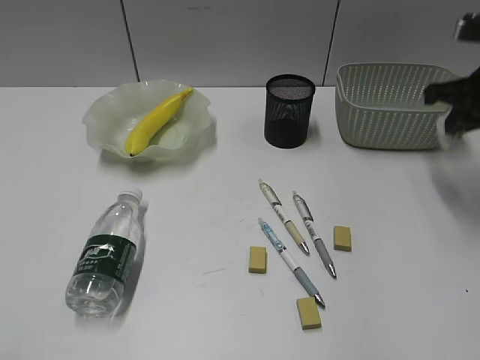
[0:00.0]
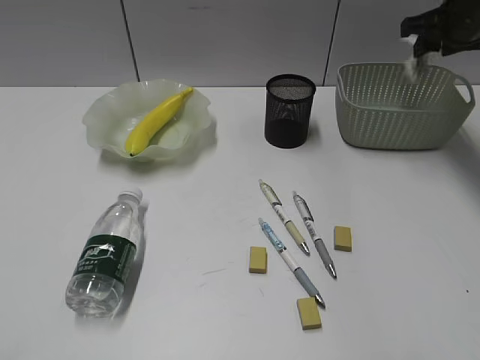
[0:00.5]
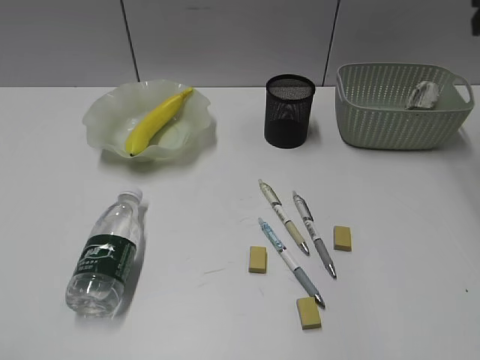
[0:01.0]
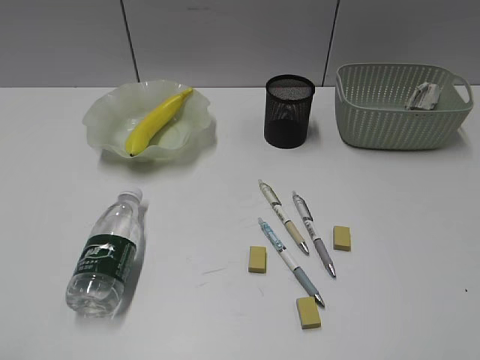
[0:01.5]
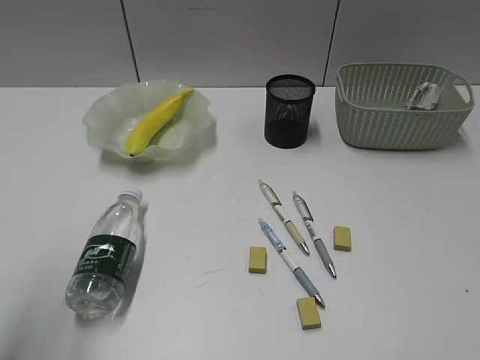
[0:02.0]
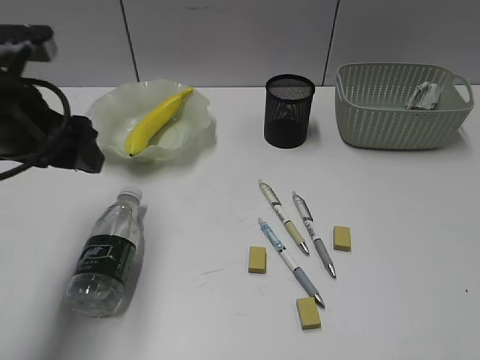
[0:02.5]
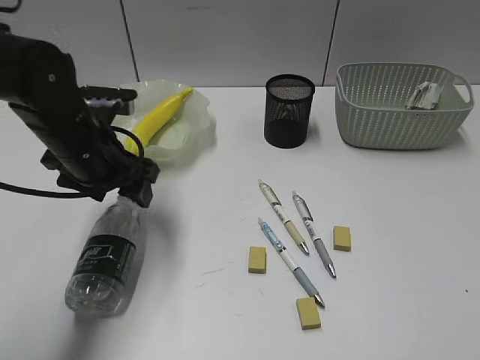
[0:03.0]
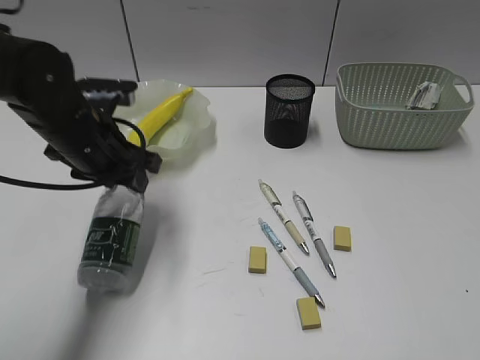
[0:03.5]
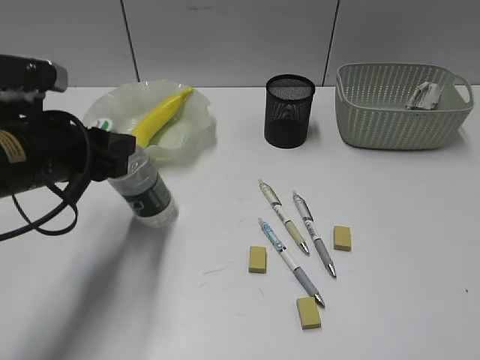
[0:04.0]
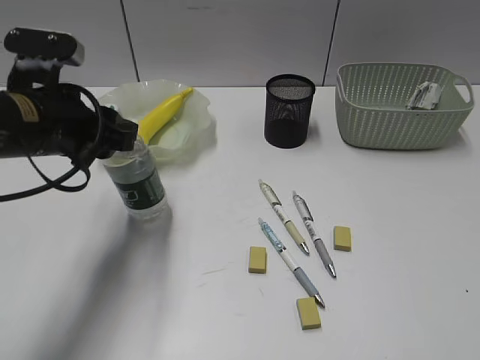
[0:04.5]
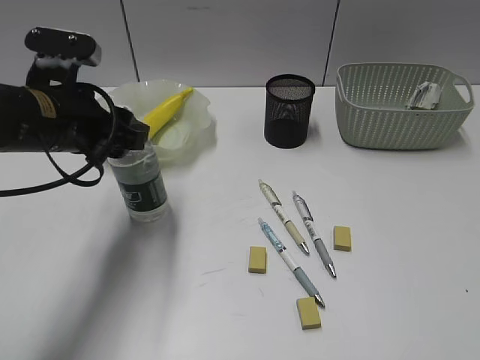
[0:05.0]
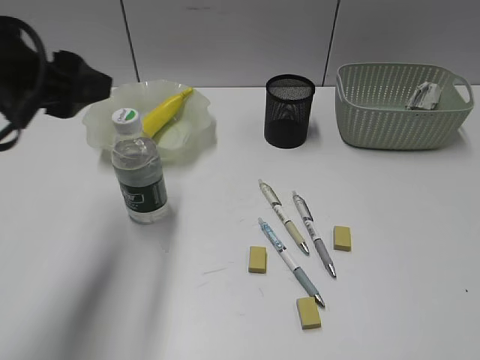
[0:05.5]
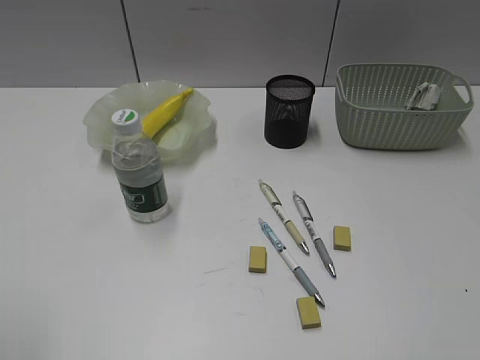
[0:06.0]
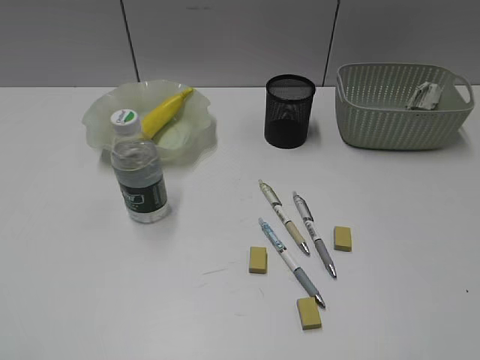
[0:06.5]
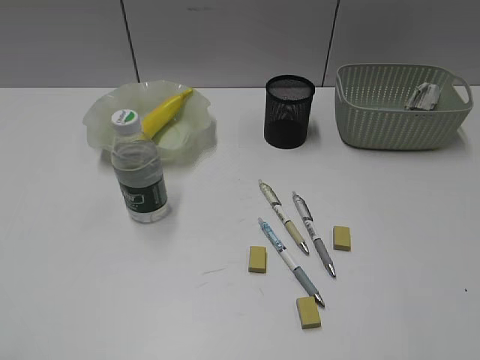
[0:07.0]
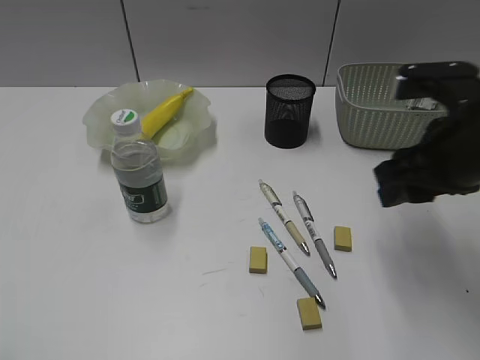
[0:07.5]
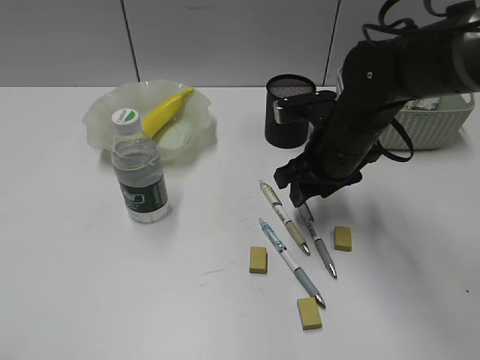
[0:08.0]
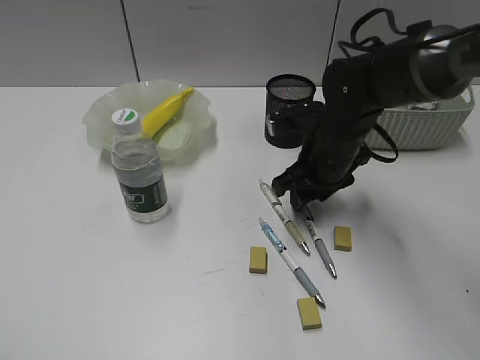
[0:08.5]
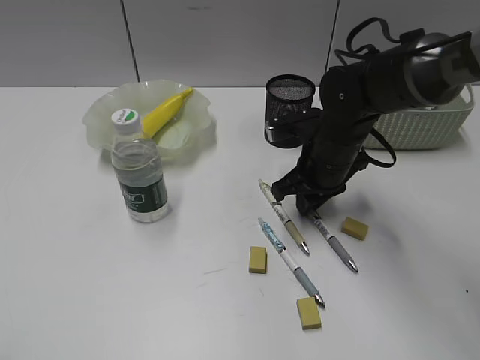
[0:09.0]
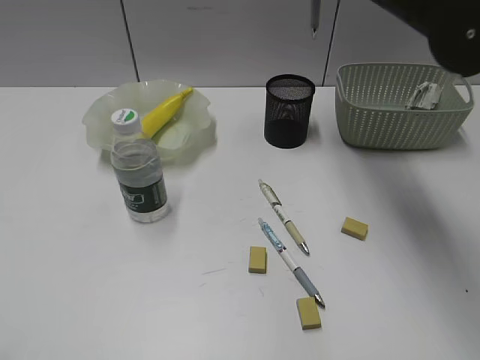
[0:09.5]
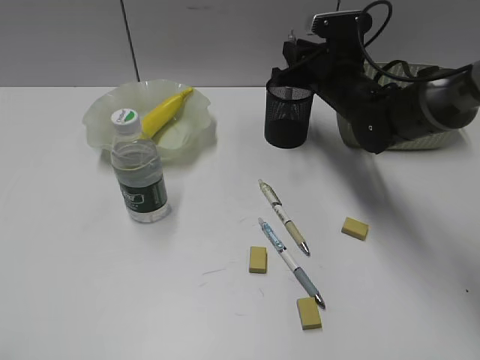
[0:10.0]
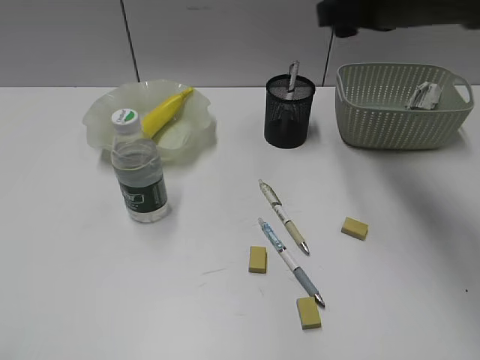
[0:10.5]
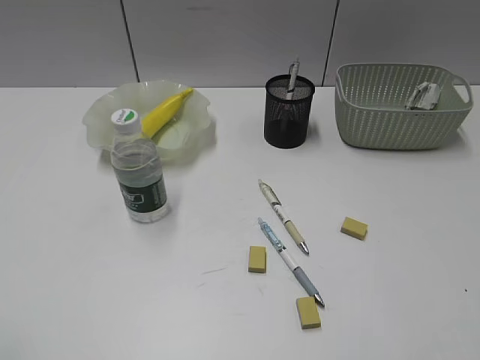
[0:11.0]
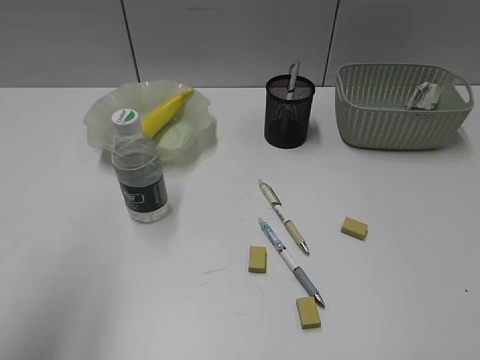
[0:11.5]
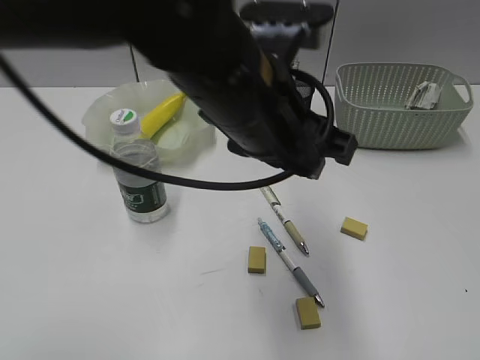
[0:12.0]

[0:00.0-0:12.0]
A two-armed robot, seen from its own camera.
Step, 0:00.0 to 0:00.5: Place the waste paper in the basket with right gripper.
Step, 0:01.0 to 0:03.0: Grasp the bottle with left gripper.
Step, 0:03.5 to 0:05.0: Stand the bottle with left gripper.
Step, 0:05.5 to 0:09.0: Grasp the gray pen with right gripper.
Step, 0:09.5 to 0:10.0: Place the gray pen in pen holder with right gripper.
0:00.0 to 0:02.0: The right gripper shifts some 35 cm backward, and opens. The left gripper is displaced forward by about 10 cm, and opens up.
0:02.0 to 0:04.0: The left gripper goes roughly 20 cm forward, downward and to the right, and closes up.
0:04.0 to 0:06.0: The left gripper is displaced backward, upward and to the left by about 30 cm.
0:06.0 to 0:08.0: The right gripper moves forward, to the left and downward, about 40 cm, while the left gripper goes about 5 cm backward.
0:08.0 to 0:10.0: The right gripper moves up and down over approximately 20 cm, changing direction 2 times, and closes.
0:10.0 to 0:12.0: The left gripper moves to the right and forward, roughly 40 cm, while the right gripper is displaced backward by roughly 40 cm, and opens up.

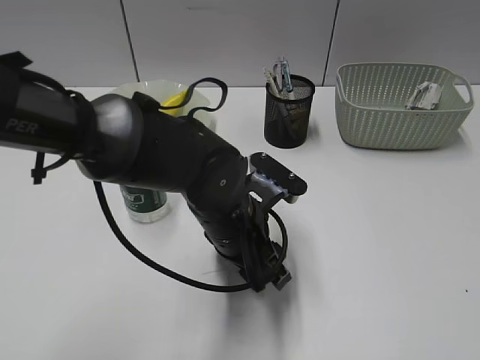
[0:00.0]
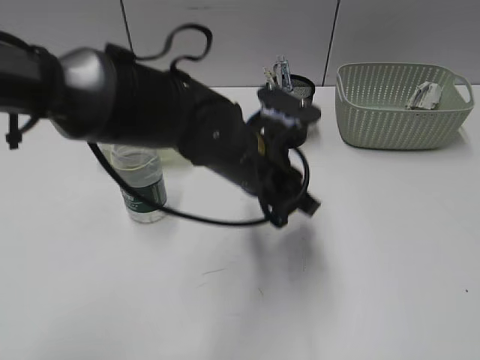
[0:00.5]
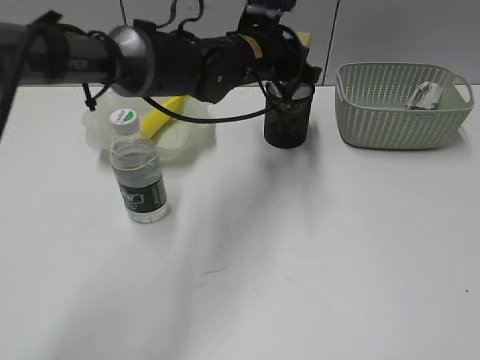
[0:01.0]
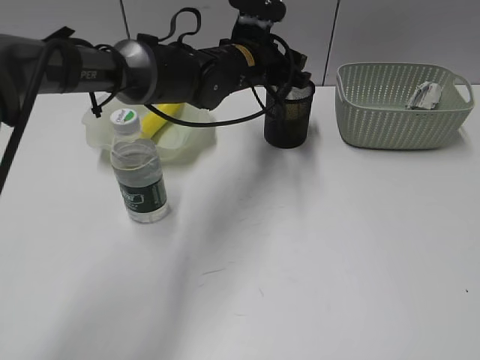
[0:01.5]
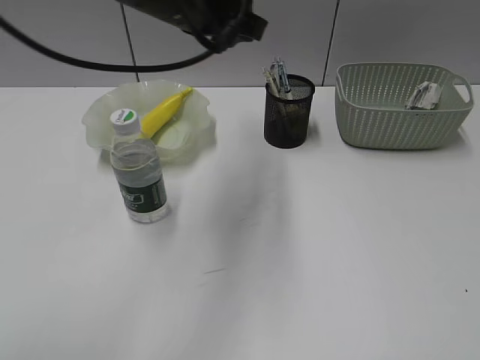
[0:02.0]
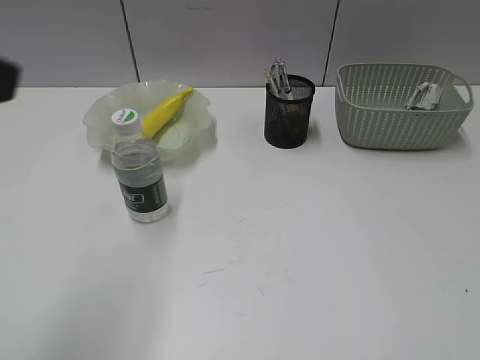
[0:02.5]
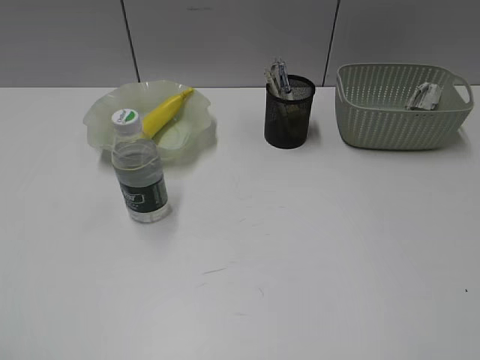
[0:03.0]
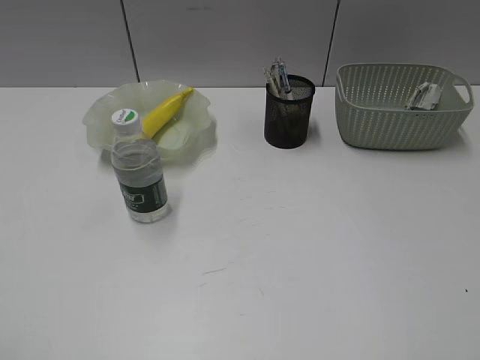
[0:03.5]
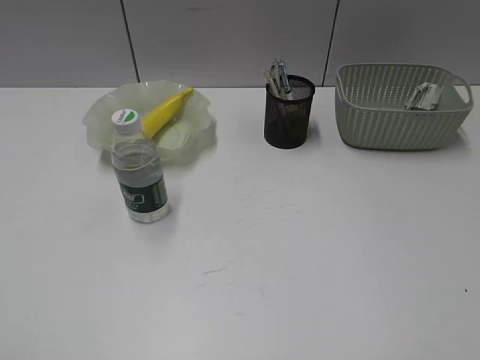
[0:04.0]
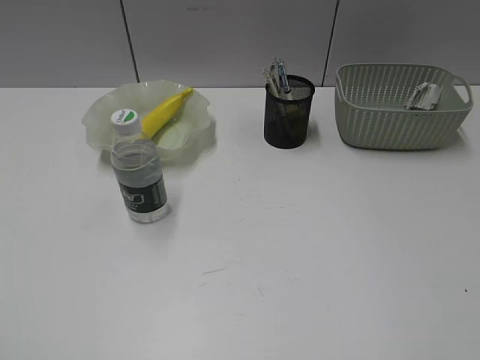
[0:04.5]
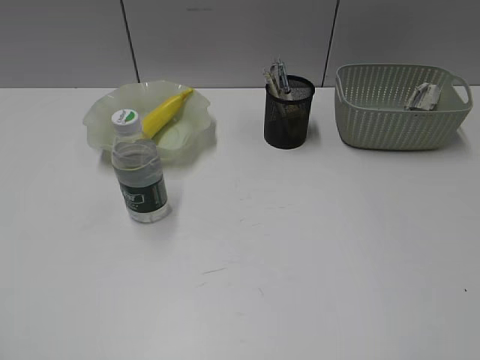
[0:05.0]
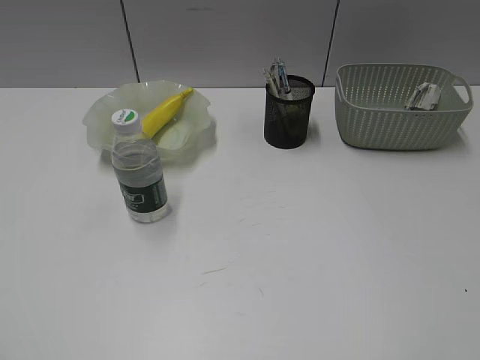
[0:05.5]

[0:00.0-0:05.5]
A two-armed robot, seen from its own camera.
Step, 0:00.5 to 0:01.5: Place the eraser in pen holder with left gripper.
0:00.0 to 0:02.0: The left gripper is displaced upward and forward by roughly 20 cm.
0:02.0 to 0:03.5: The left gripper heads backward and to the left, covering some 50 cm.

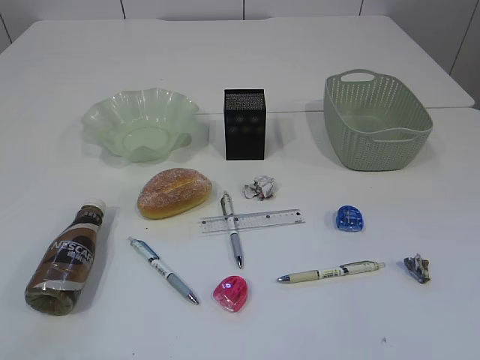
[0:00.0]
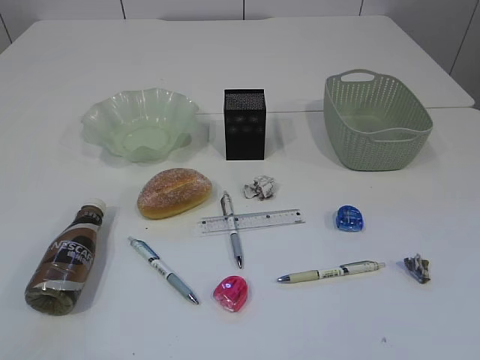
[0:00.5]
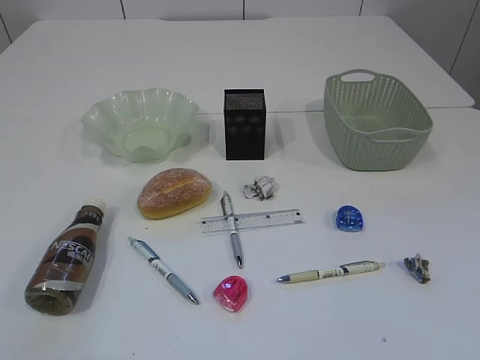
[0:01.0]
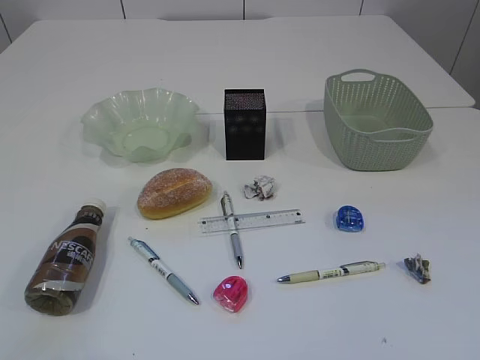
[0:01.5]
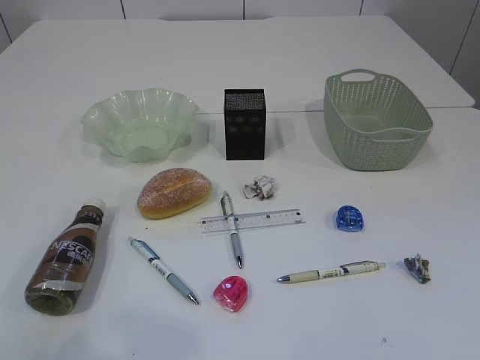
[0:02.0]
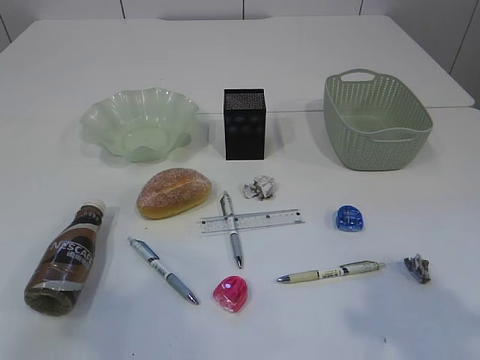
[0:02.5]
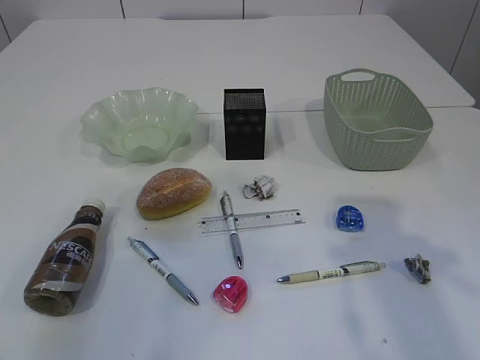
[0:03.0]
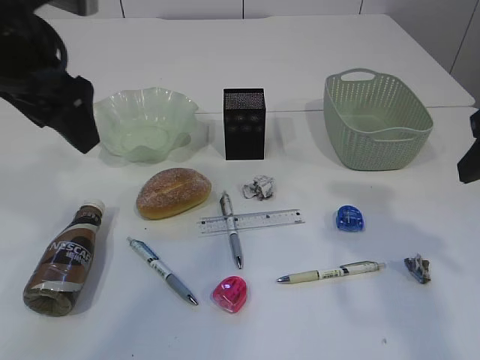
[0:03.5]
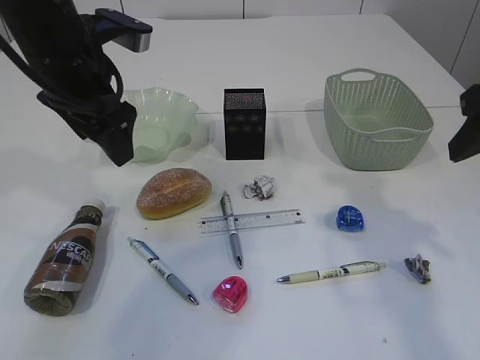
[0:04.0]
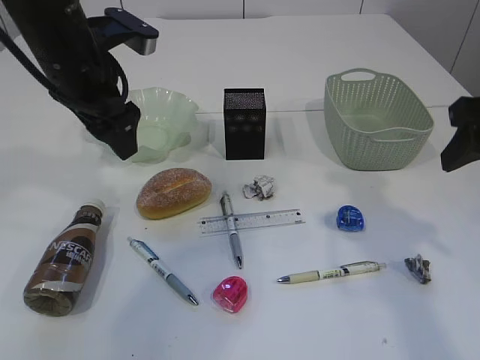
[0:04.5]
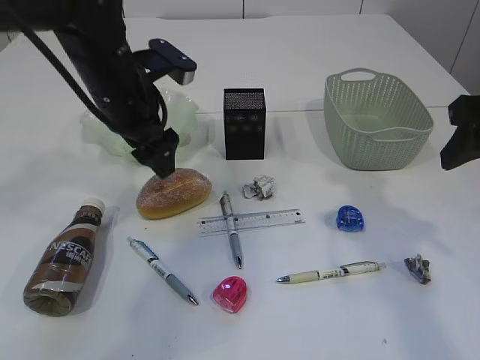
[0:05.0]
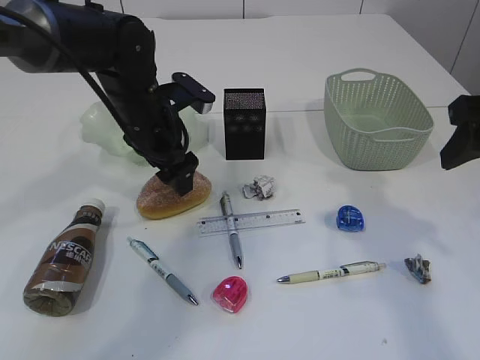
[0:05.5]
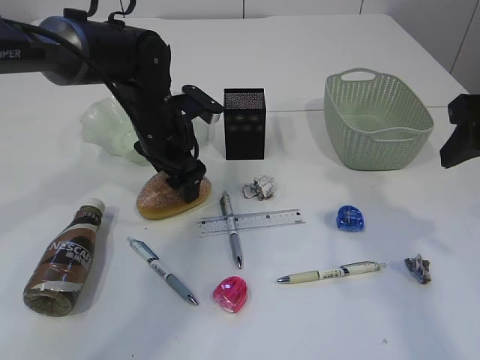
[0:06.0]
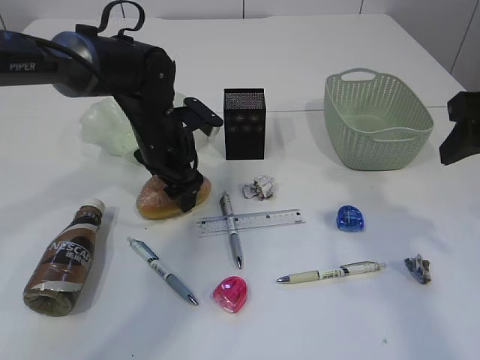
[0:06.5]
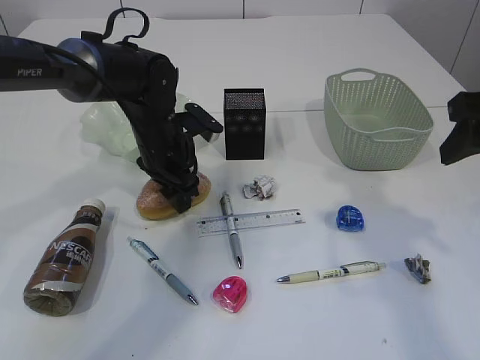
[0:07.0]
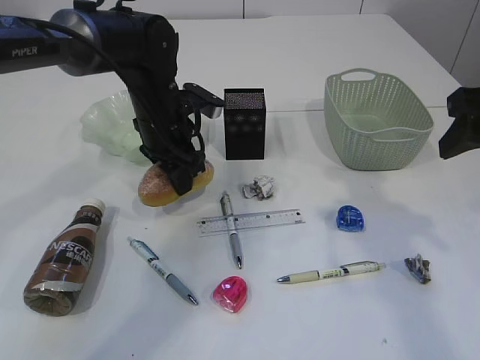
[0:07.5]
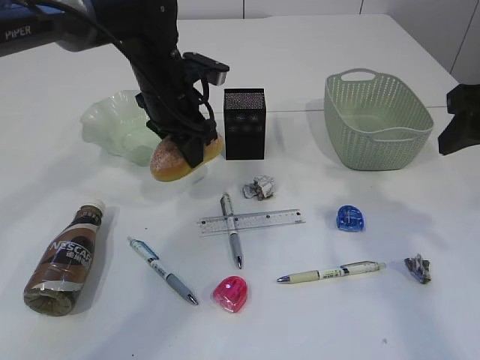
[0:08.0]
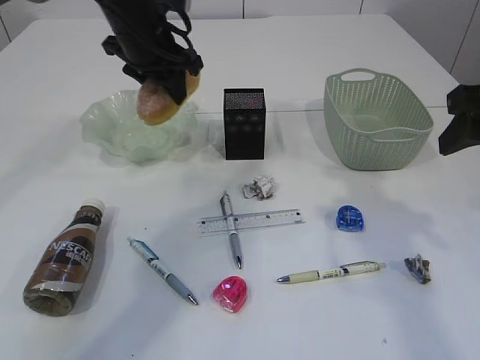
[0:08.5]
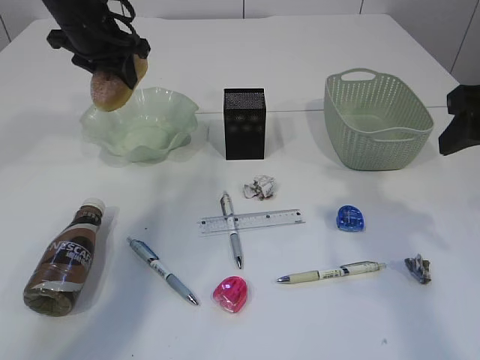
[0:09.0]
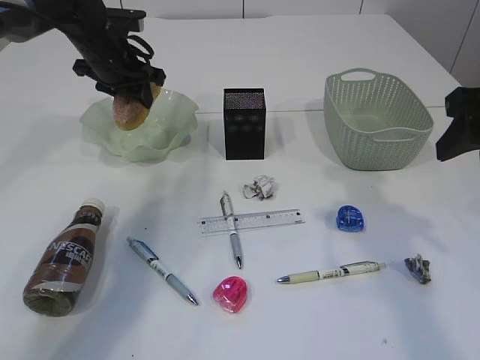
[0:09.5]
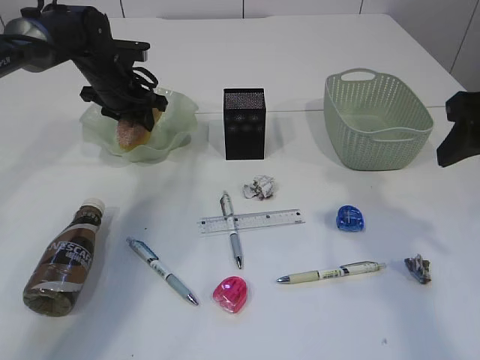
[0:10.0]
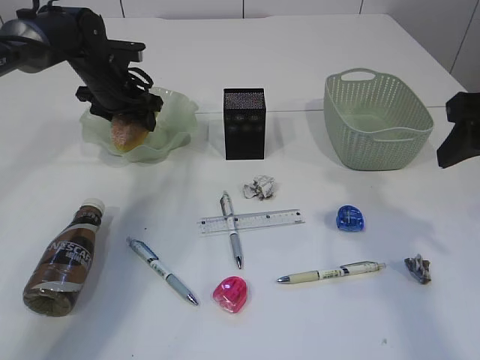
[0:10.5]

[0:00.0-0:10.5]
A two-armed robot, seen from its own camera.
0:02.0 to 0:04.0: The right gripper goes roughly 25 cm forward. The left gripper shifts about 35 cm forward and to the right.
0:04.0 to 0:06.5: The left gripper travels downward and forward by approximately 15 cm.
0:06.5 to 0:08.5: The left gripper heads upward, covering roughly 15 cm, and closes its fingers.
0:08.5 to 0:10.5: The left gripper moves downward, to the left and forward, approximately 15 cm, and opens its fingers.
